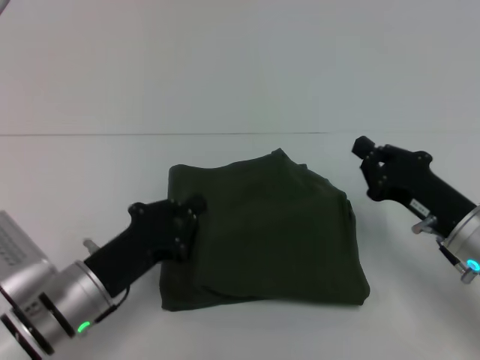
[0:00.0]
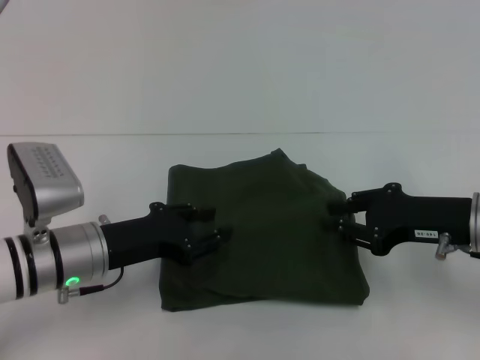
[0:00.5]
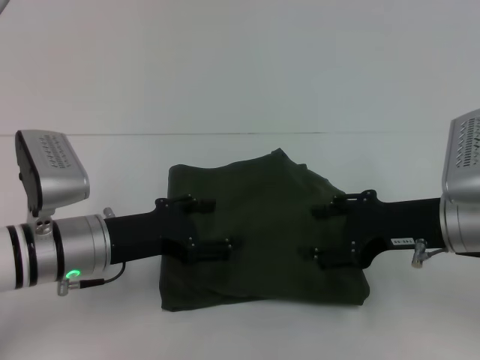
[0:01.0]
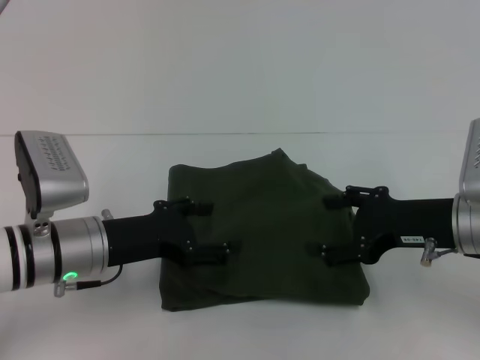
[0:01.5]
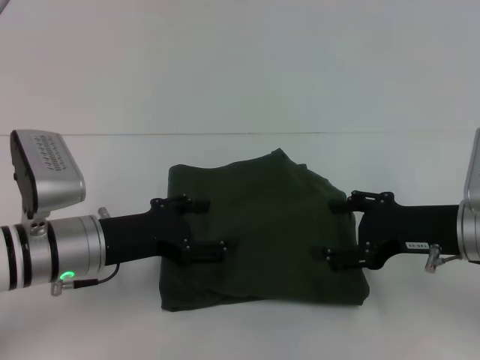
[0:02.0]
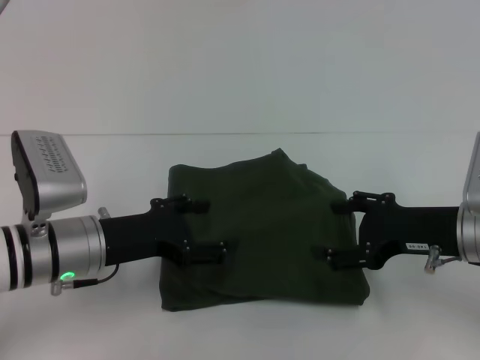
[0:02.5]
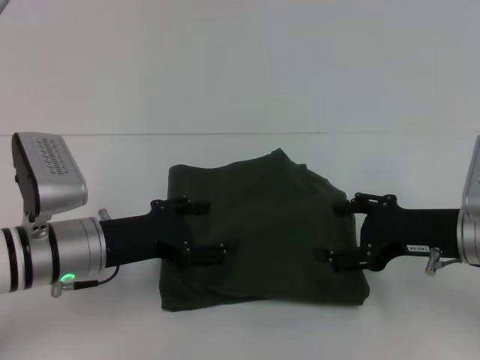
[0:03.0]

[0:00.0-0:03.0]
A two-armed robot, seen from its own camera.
0:00.0 to 0:01.5: The grippers both shift upward by about 5 cm. The left gripper opens its fingers. Meanwhile the right gripper opens up.
0:01.5 to 0:03.0: The grippers stay close to where they were, moving slightly.

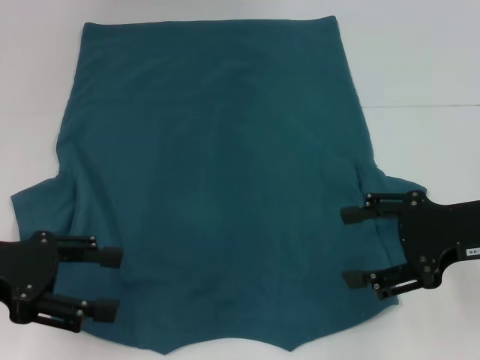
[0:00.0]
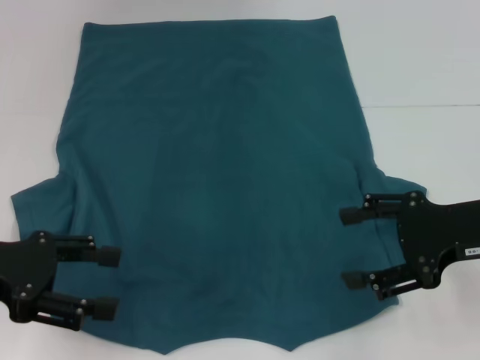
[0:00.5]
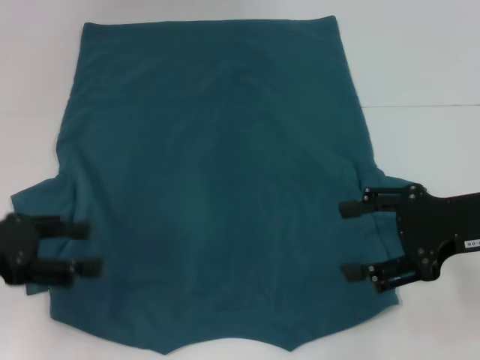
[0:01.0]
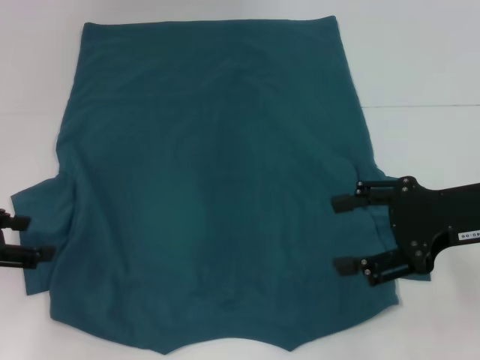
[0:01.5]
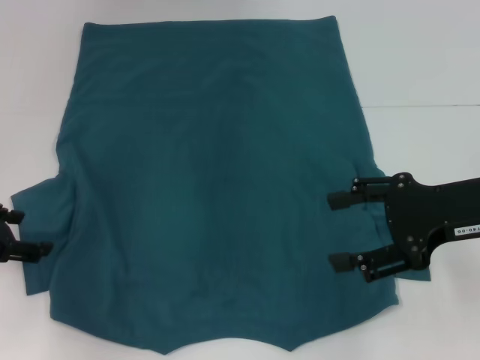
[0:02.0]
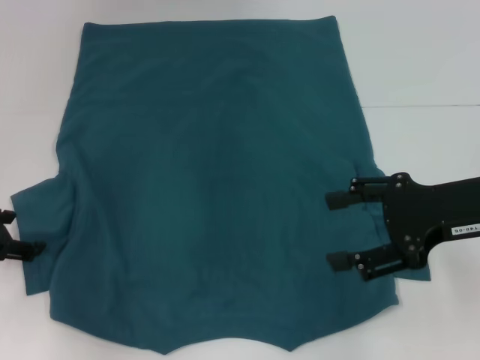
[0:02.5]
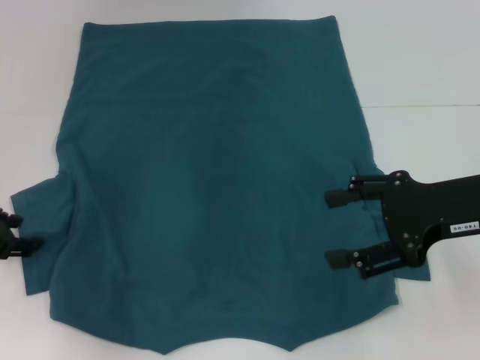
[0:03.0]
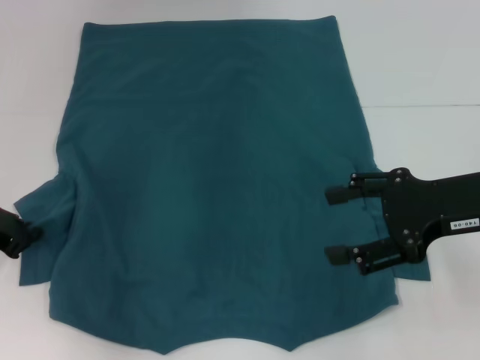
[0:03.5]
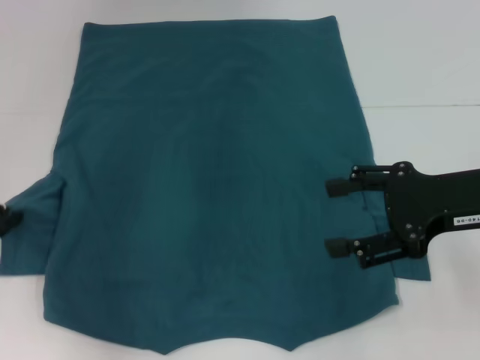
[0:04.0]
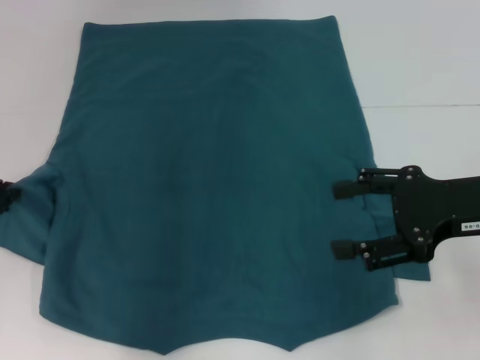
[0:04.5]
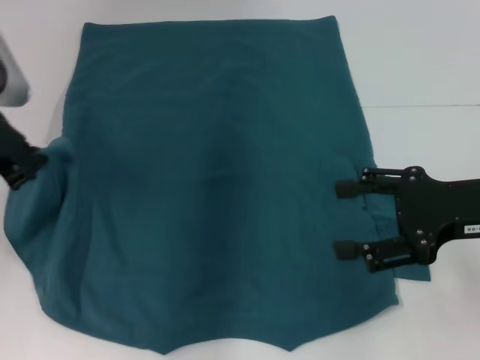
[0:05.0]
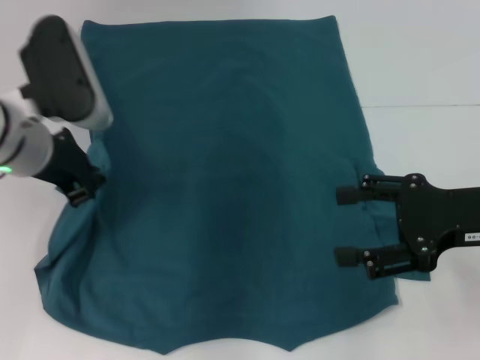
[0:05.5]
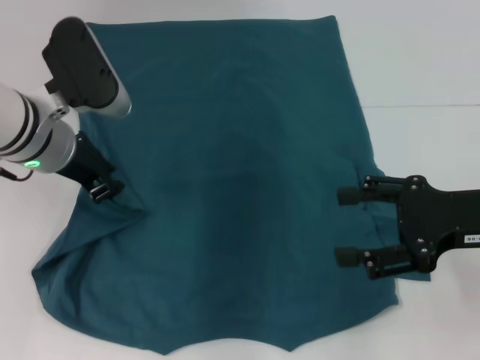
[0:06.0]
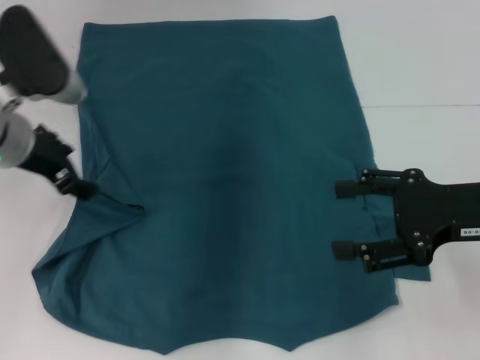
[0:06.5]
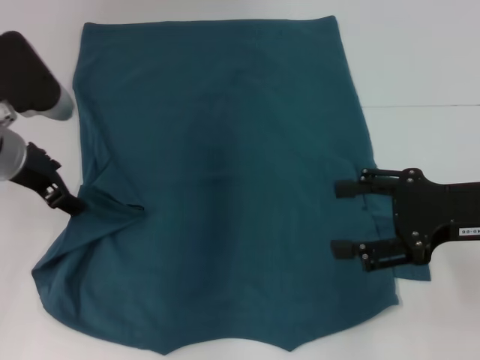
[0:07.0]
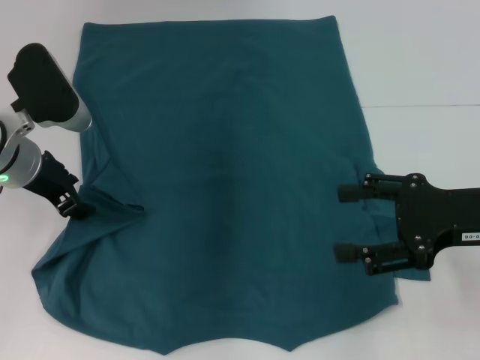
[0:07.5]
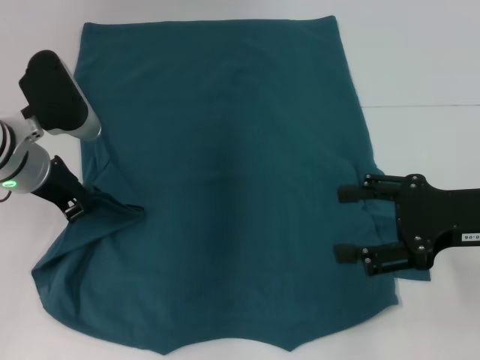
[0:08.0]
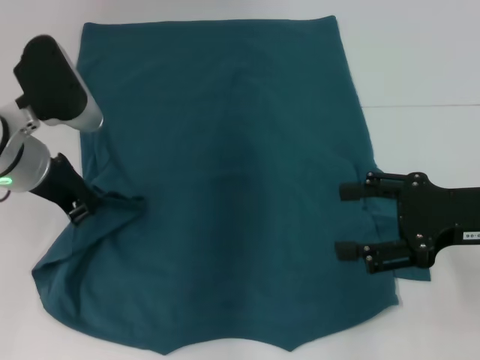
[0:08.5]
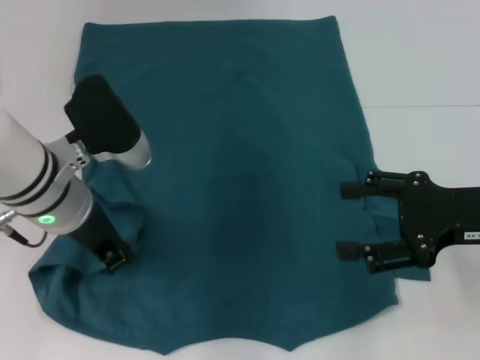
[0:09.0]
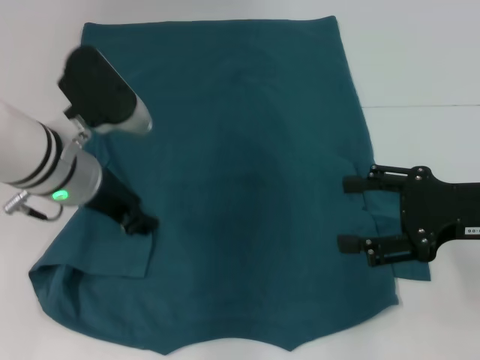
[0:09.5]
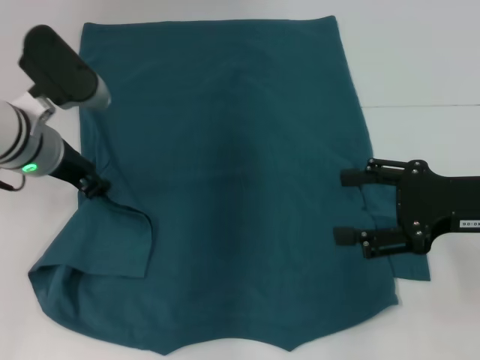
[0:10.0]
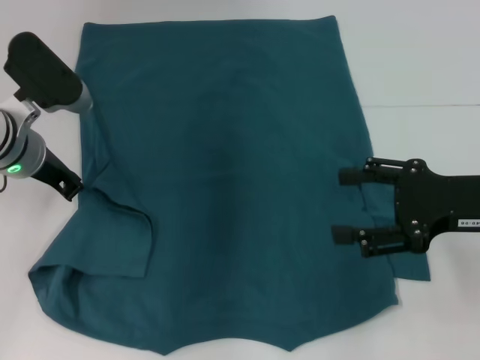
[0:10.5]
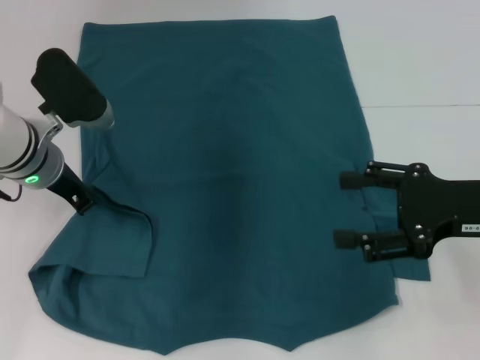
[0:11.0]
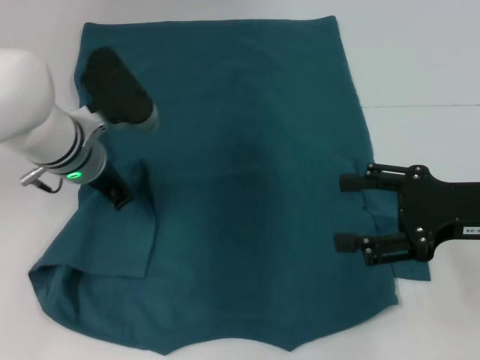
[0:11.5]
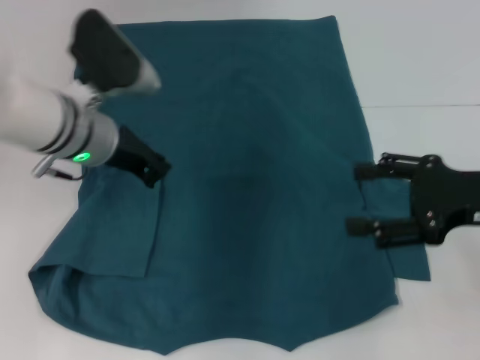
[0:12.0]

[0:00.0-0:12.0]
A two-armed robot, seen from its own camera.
Step, 0:00.0 to 0:11.5: Fold the bottom left sleeve with your left hand.
0:00.0 to 0:02.0: The left gripper is displaced forward by roughly 5 cm.
0:02.0 to 0:04.0: The left gripper closes up.
0:04.0 to 0:06.0: The left gripper moves to the right, roughly 15 cm.
0:06.0 to 0:08.0: The left gripper shifts by roughly 5 cm, and opens, then closes again.
0:10.0 to 0:12.0: The left gripper closes up.

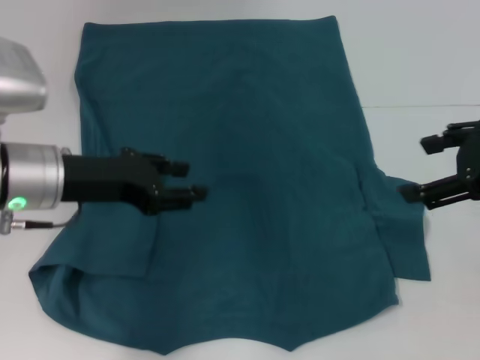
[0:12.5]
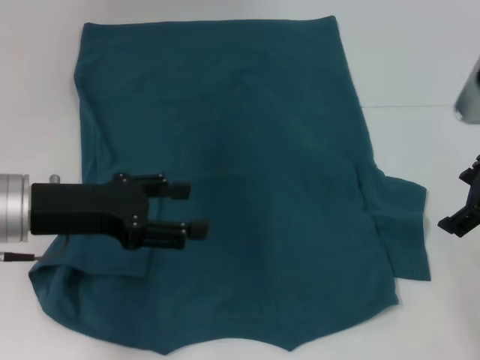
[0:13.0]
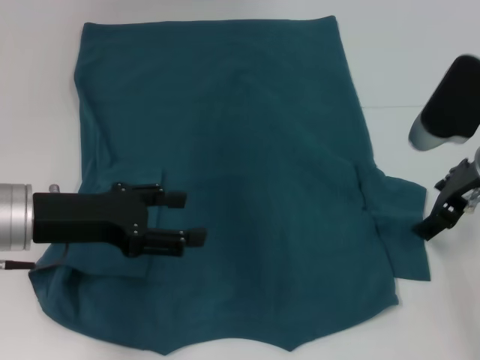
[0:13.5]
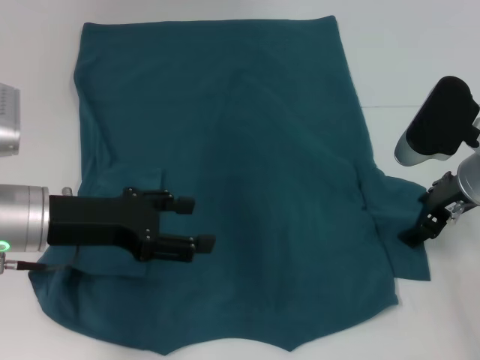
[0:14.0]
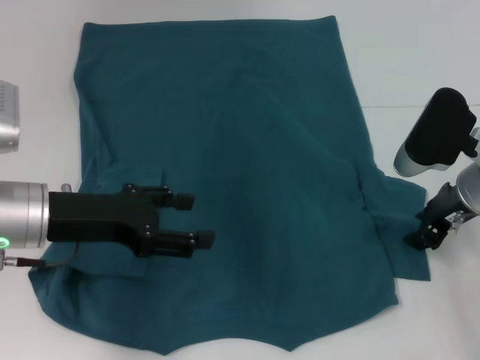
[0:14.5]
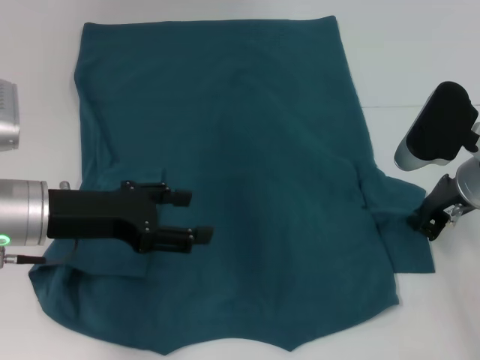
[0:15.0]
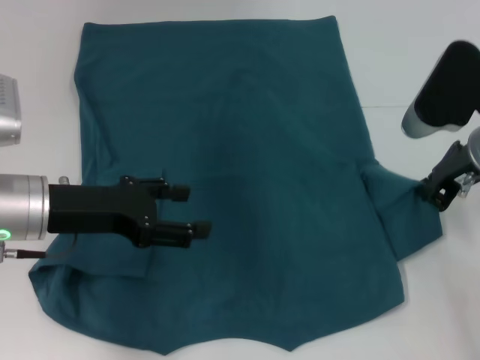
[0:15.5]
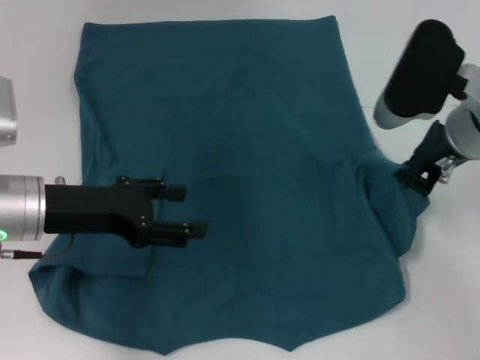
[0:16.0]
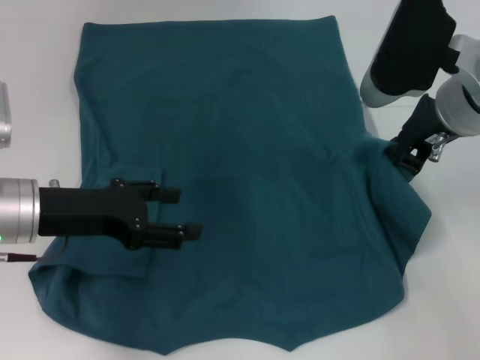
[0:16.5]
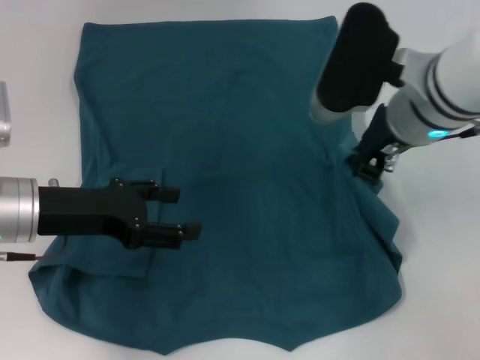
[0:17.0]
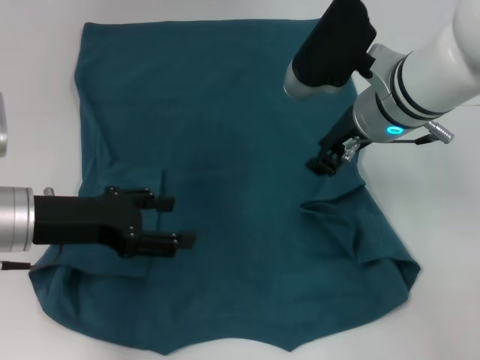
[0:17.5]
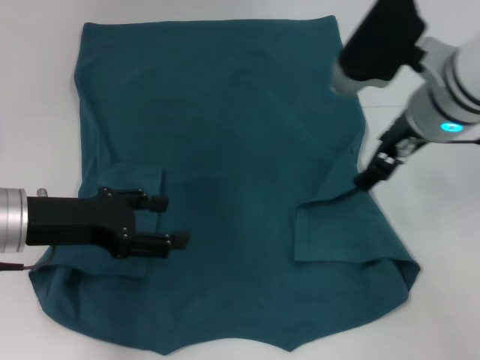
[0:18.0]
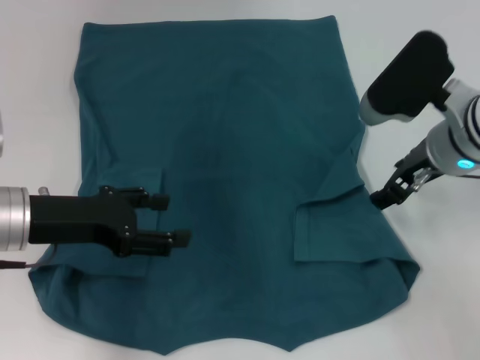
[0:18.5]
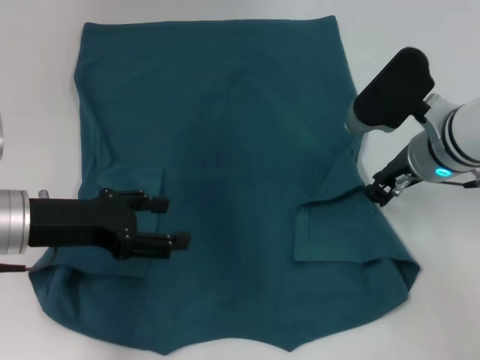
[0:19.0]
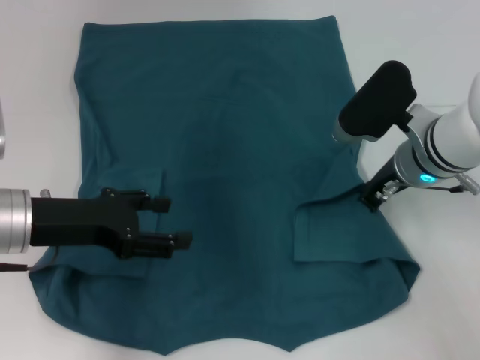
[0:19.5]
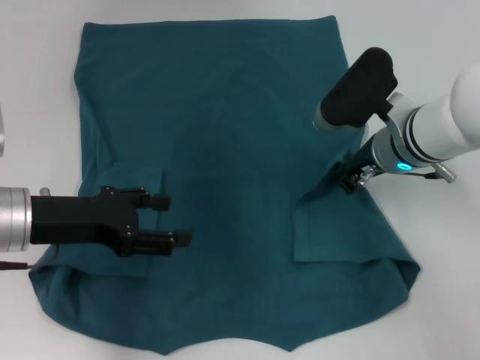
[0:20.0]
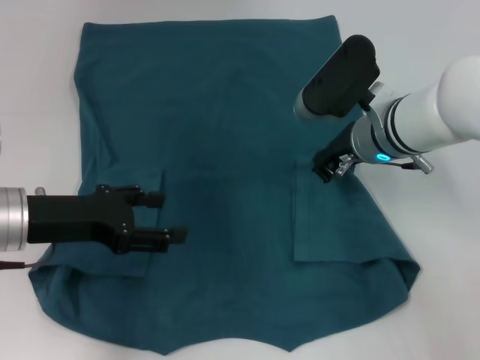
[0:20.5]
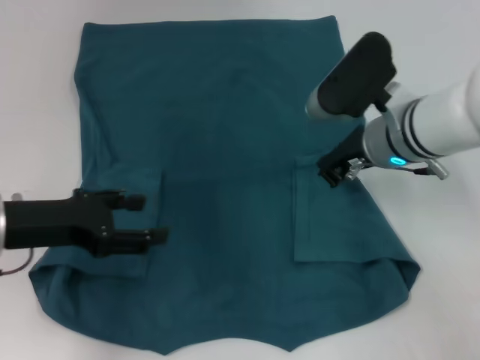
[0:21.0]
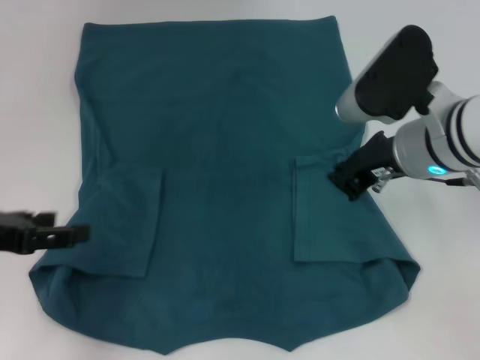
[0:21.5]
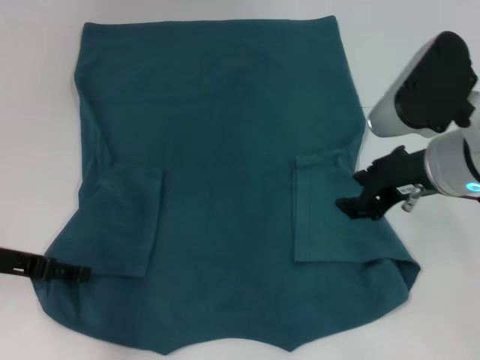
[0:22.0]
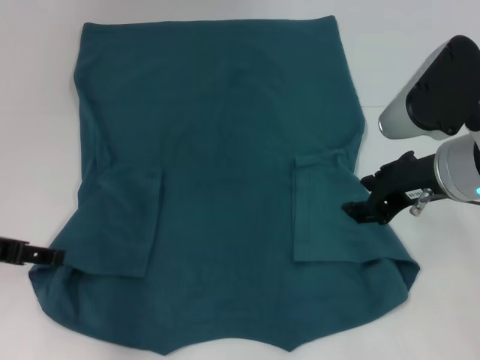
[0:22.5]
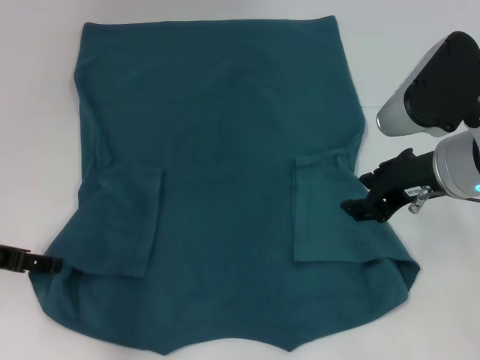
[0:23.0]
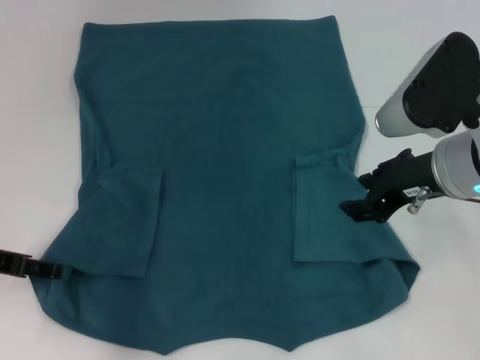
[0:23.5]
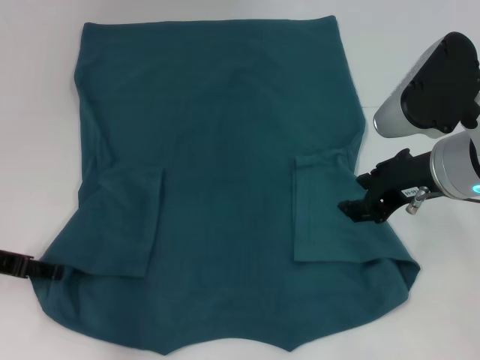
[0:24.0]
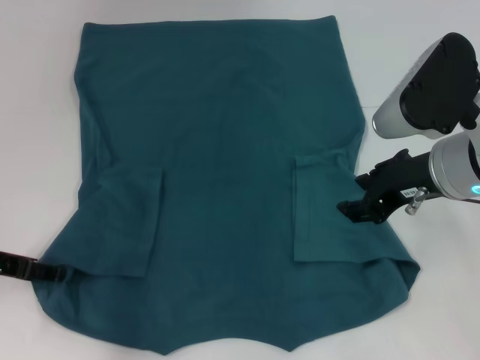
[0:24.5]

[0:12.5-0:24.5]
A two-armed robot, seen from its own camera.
Step, 0:12.5 to 0:20.5: Fold the bottom right sleeve to the right.
0:12.5 to 0:14.5: The right gripper travels downward and forward by about 15 cm, and closes its fingers, while the left gripper opens up.
0:14.5 to 0:16.5: The right gripper moves upward and to the left, about 10 cm, and closes.
0:16.5 to 0:18.5: The right gripper is displaced downward by roughly 5 cm, and opens up.
0:18.5 to 0:20.5: The right gripper shifts some 5 cm to the left, and closes.
0:20.5 to 0:22.5: The left gripper is displaced to the left by approximately 5 cm; the right gripper heads backward, to the right and upward, covering roughly 10 cm, and opens its fingers.
0:22.5 to 0:24.5: The grippers stay close to where they were, moving slightly.
